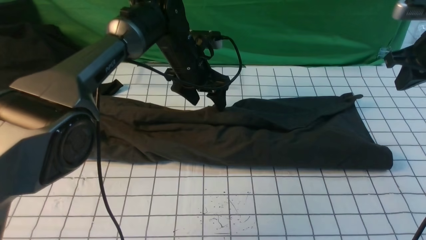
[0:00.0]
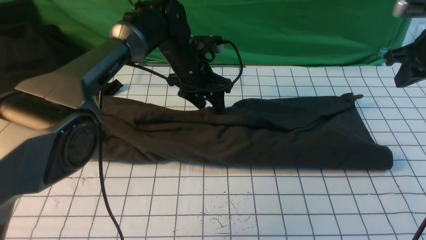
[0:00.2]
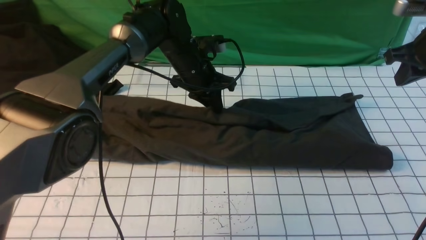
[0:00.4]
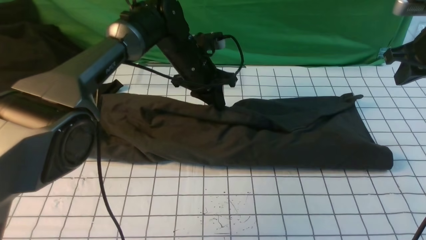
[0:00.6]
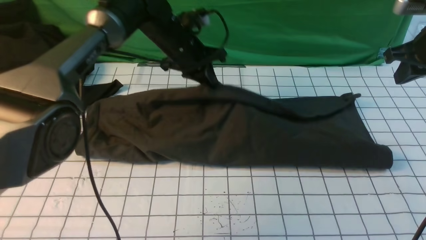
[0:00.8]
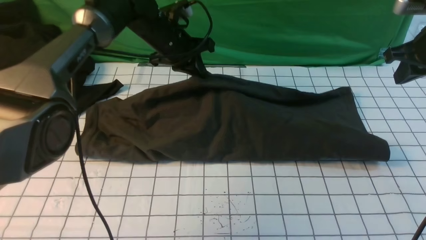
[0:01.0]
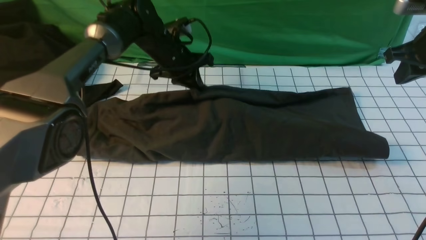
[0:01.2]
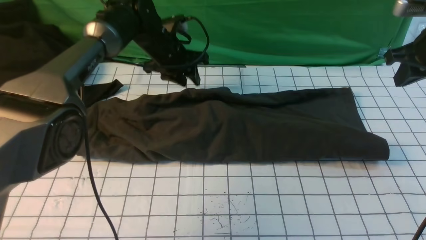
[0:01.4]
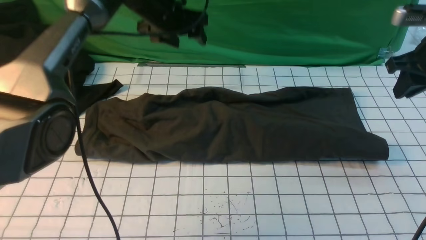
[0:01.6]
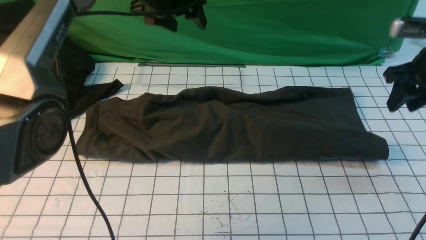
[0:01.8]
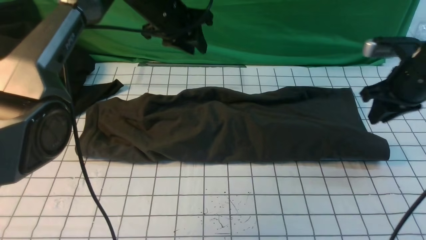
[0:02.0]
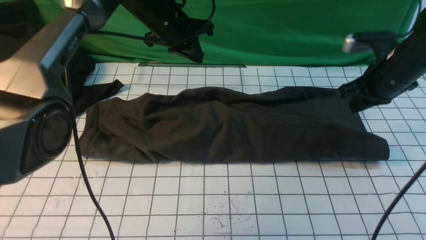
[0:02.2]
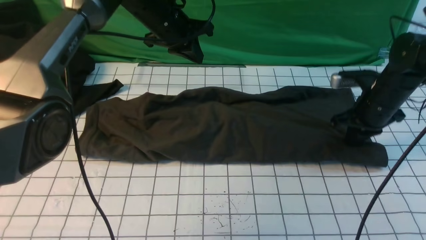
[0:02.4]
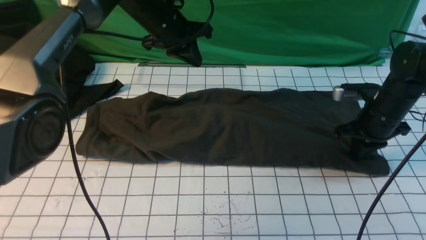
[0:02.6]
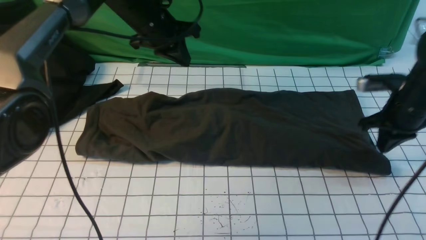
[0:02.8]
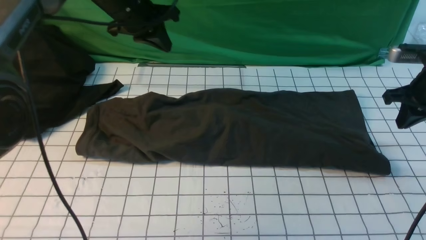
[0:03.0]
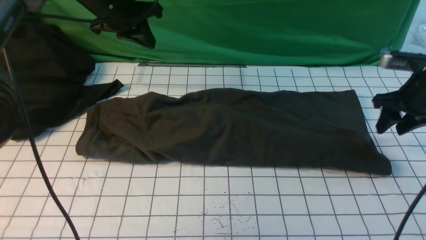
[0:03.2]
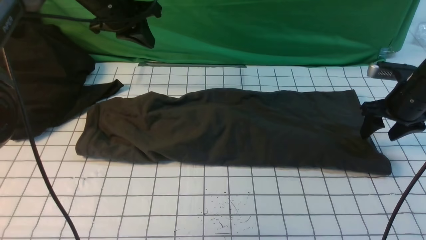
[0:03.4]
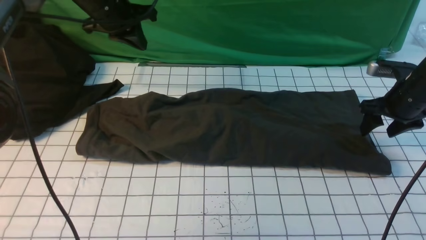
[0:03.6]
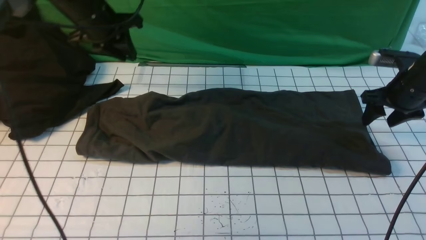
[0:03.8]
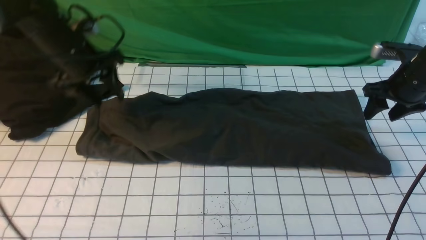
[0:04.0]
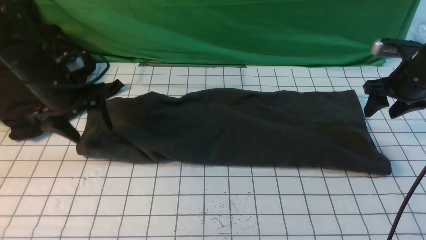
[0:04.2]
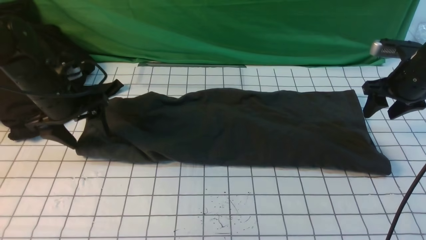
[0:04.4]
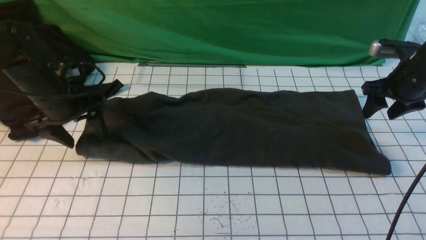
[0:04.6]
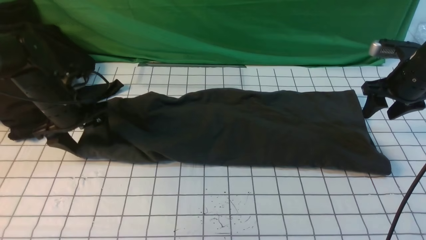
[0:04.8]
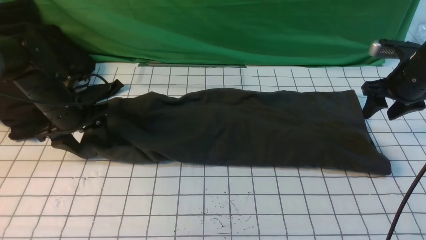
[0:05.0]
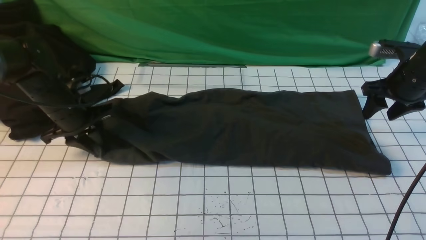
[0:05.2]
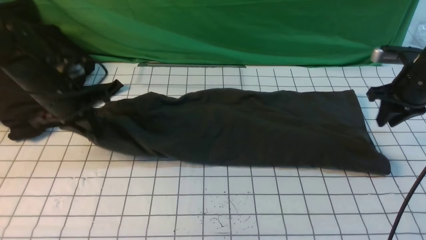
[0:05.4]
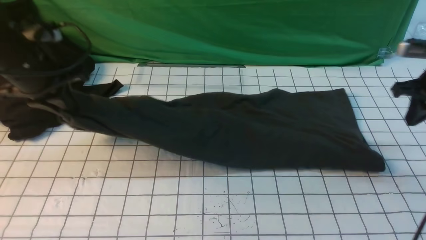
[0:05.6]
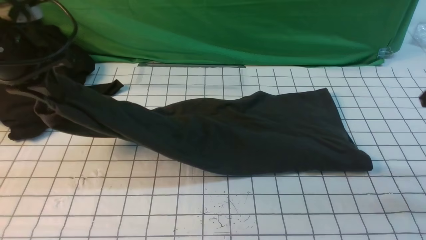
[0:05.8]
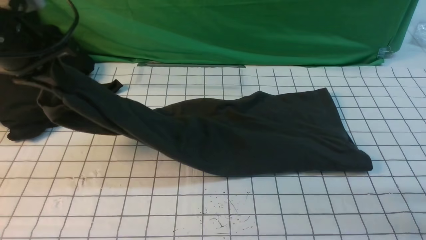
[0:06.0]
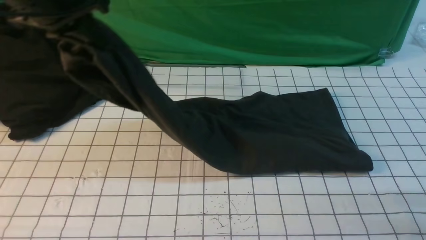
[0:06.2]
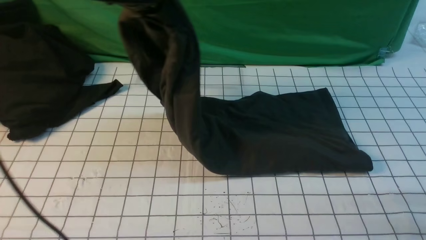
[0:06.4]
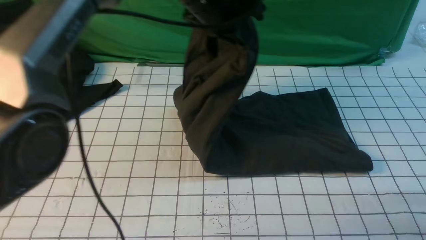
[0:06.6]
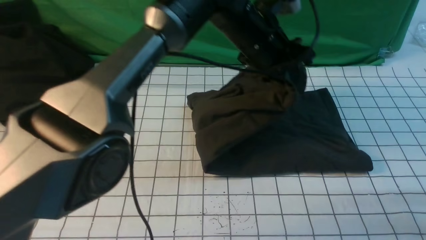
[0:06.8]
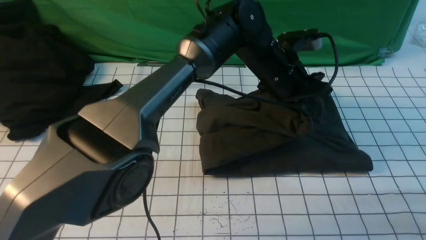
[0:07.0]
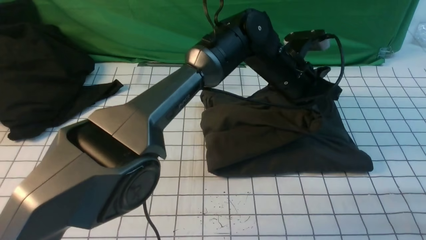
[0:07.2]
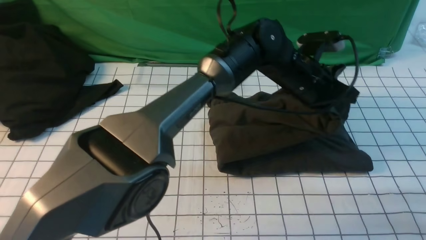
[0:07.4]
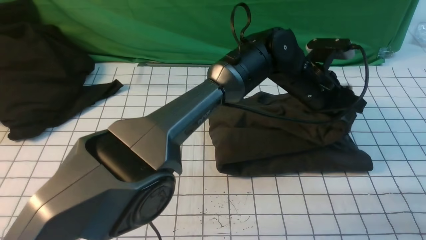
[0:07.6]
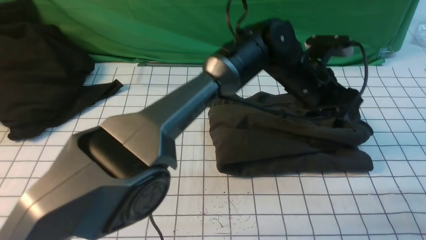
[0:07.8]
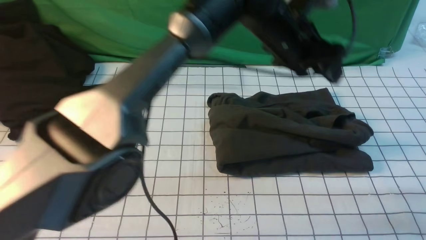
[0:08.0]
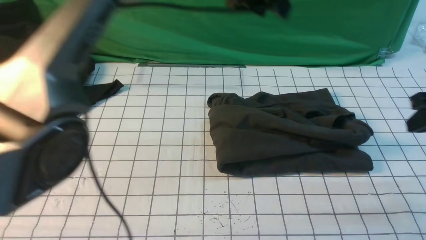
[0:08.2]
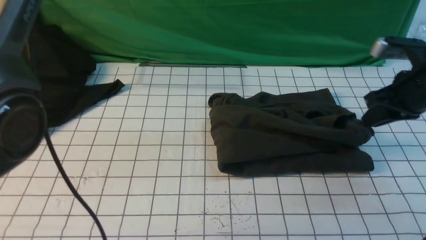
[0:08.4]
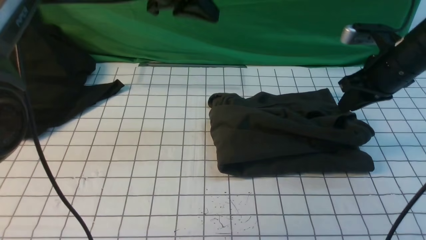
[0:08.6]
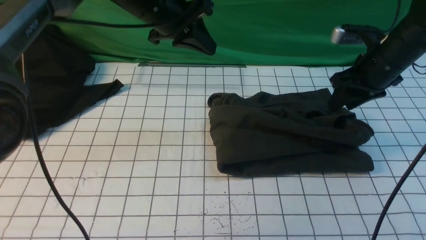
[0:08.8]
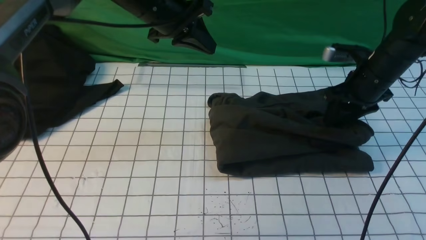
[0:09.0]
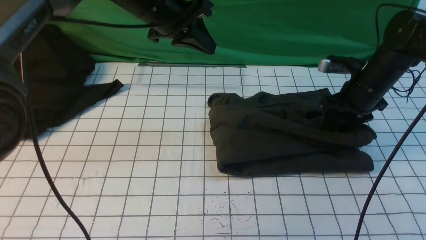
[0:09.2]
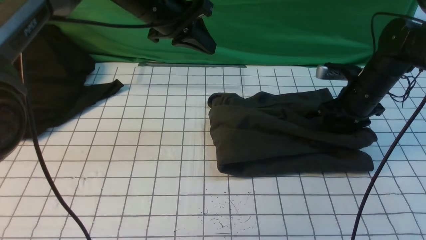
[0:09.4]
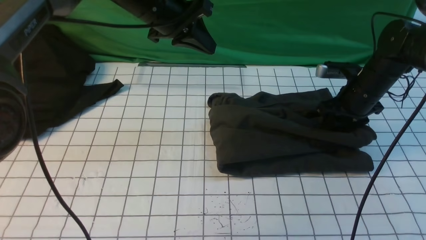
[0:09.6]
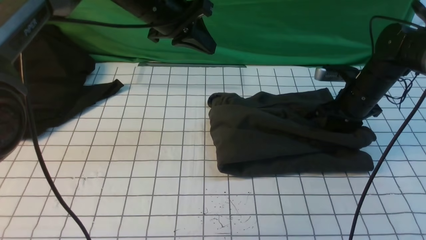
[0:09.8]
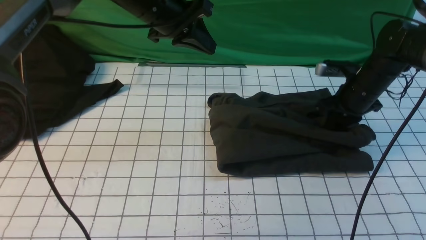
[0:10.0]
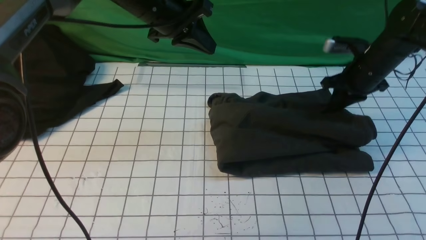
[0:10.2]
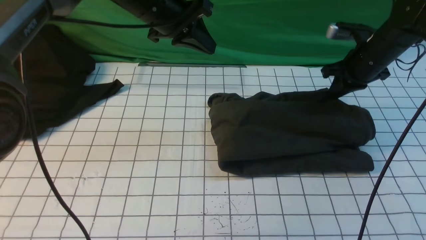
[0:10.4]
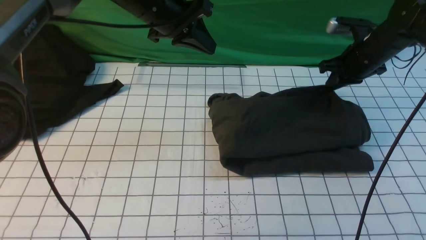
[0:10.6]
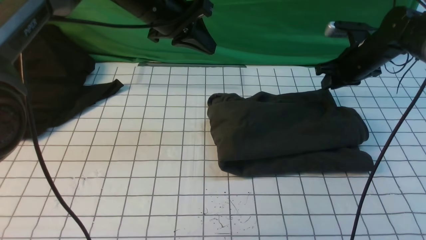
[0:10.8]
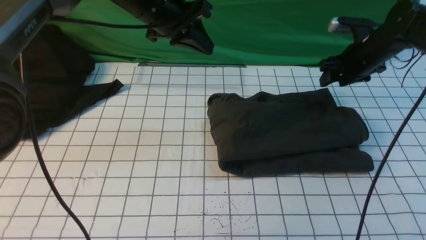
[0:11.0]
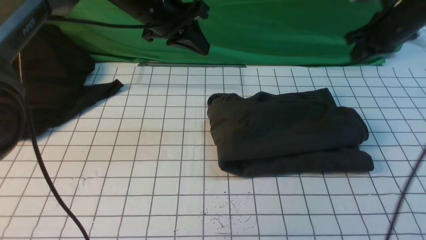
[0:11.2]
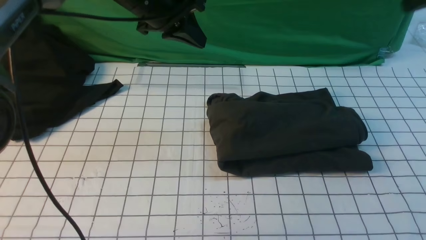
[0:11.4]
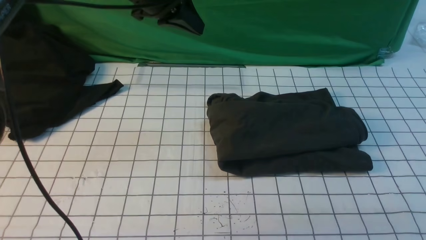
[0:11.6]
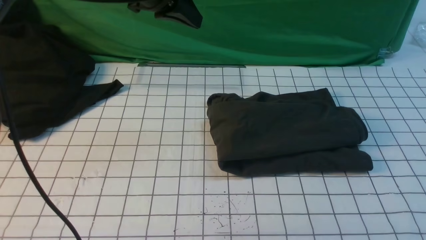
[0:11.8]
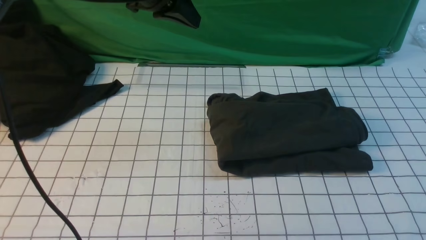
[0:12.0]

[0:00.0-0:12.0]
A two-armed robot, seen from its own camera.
Step, 0:00.0 to 0:05.0: Hold the left edge of the fabric with your left arm.
Step, 0:05.2 to 0:08.0: Drag the left edge of the fabric to the left with your left arm and fold it to the right edge.
0:00.0 to 0:01.6: The left gripper travels upward and to the left by some 10 cm, and closes, then reopens. The right gripper opens.
0:01.6 to 0:03.0: The right gripper goes roughly 5 cm downward, while the left gripper moves to the left, some 5 cm, and closes.
0:03.0 to 0:04.4: The left gripper heads to the left, downward and backward, covering roughly 20 cm, and opens up; the right gripper opens up.
0:04.4 to 0:06.0: The left gripper is displaced upward by about 15 cm, and closes its fingers. The right gripper shifts roughly 15 cm backward and upward, and closes its fingers.
0:06.0 to 0:07.6: The left gripper is displaced to the right by roughly 40 cm, and opens.
0:07.6 to 0:09.0: The left gripper shifts roughly 25 cm to the left, and closes its fingers; the right gripper heads forward, to the left and downward, covering approximately 20 cm, and opens.
0:09.0 to 0:10.4: The right gripper closes up.
0:10.4 to 0:12.0: The left gripper shifts by approximately 5 cm. The right gripper goes about 35 cm backward and upward, and opens and closes again.

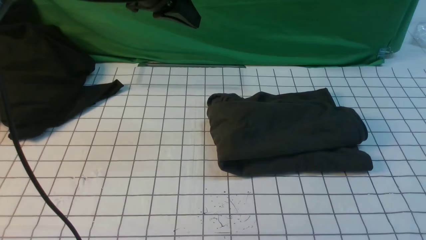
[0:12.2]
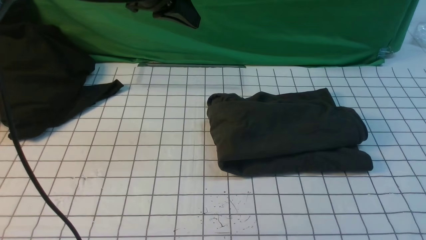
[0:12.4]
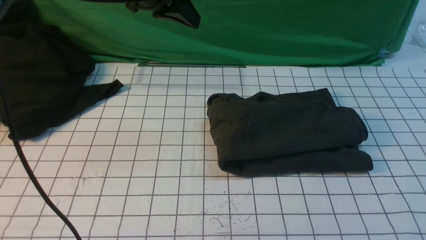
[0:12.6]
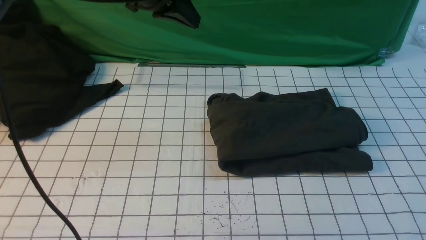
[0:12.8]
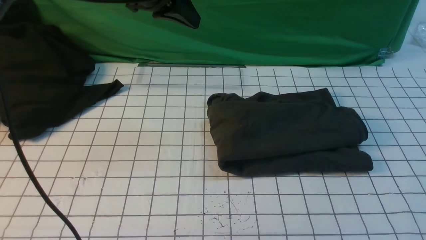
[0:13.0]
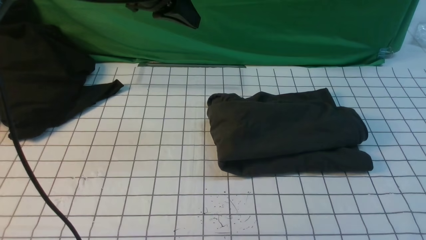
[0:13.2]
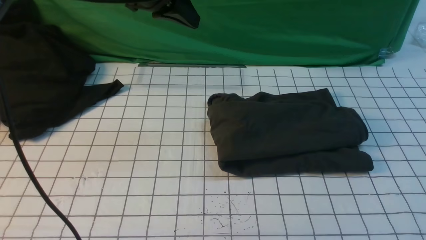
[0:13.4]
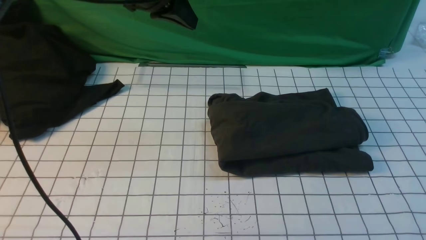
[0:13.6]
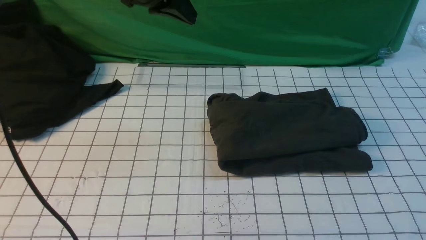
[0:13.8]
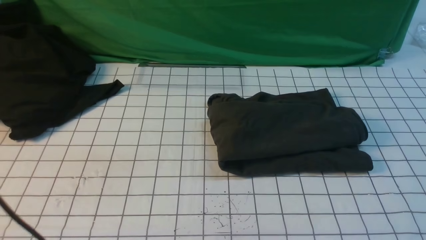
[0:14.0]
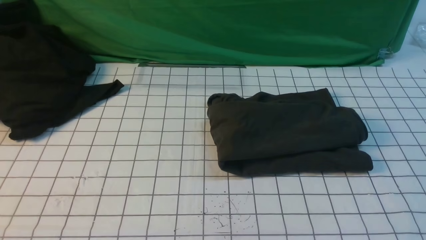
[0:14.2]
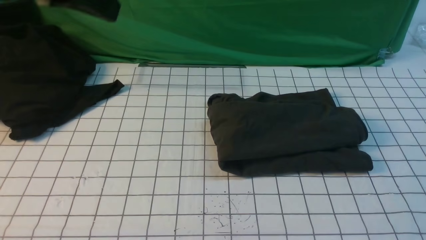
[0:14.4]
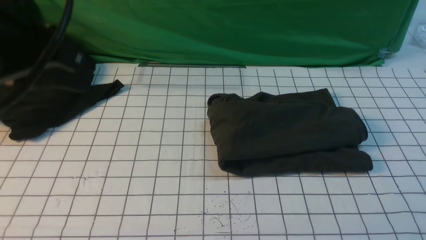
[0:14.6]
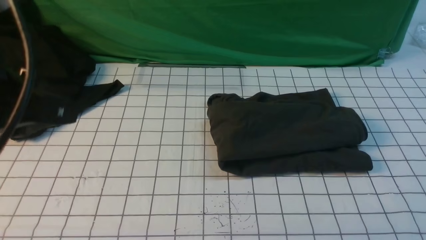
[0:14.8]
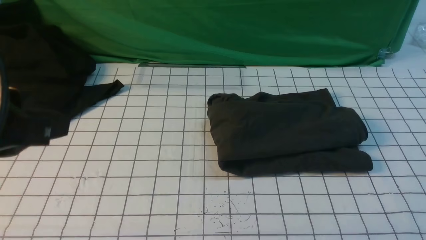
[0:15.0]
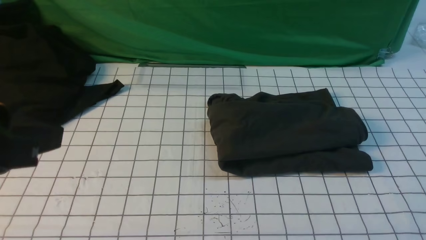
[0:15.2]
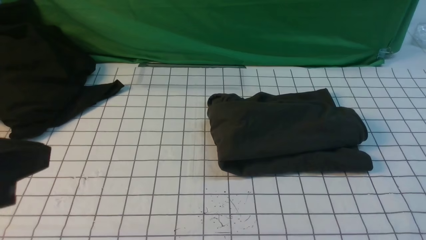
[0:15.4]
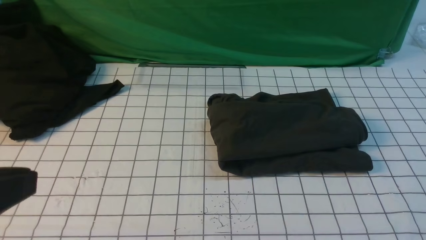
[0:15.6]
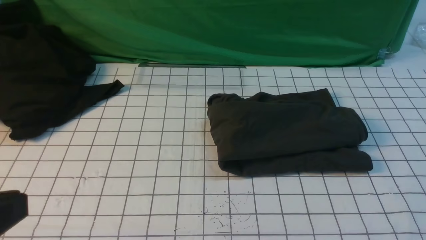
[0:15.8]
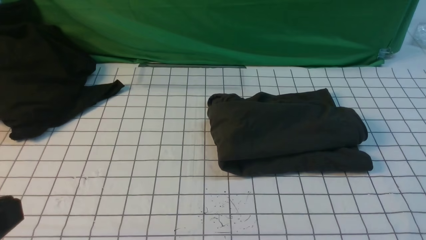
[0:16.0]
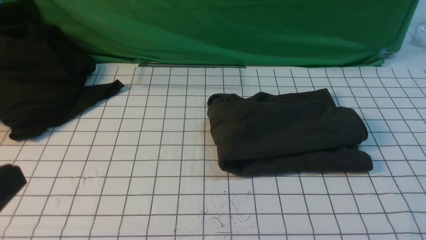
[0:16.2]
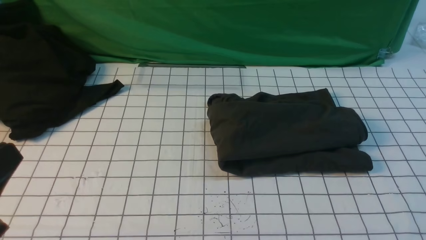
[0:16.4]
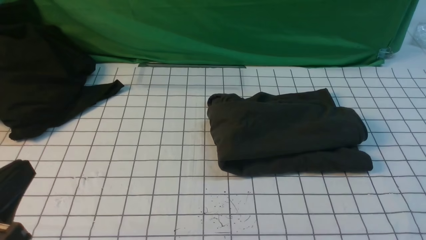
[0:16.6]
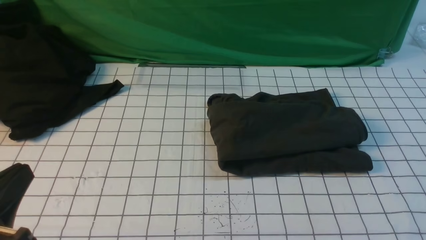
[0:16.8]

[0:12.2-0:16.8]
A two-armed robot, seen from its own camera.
0:13.8 to 0:15.2: The left gripper moves backward, roughly 30 cm.
0:15.2 to 0:16.8: The left gripper travels downward by approximately 15 cm.
